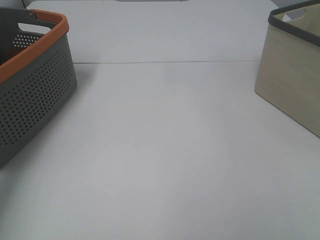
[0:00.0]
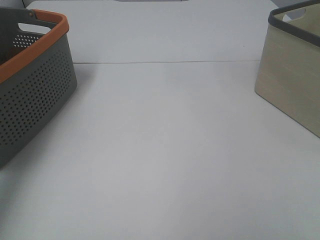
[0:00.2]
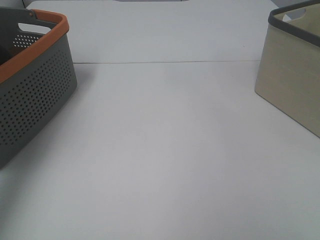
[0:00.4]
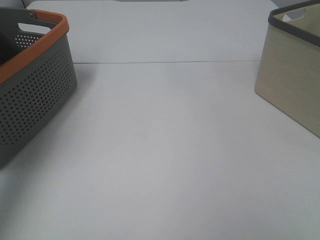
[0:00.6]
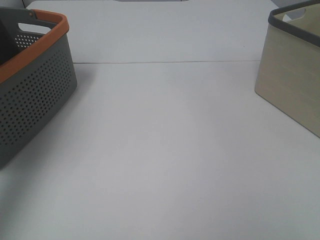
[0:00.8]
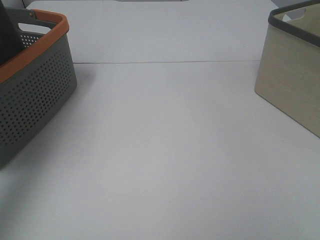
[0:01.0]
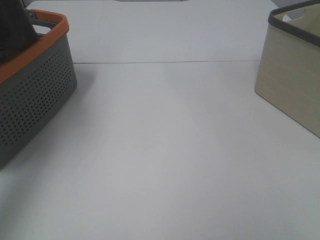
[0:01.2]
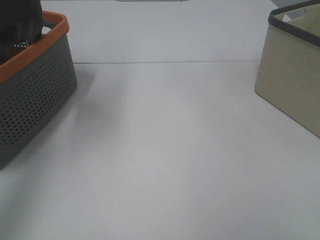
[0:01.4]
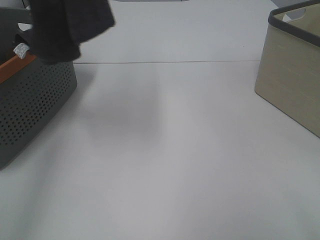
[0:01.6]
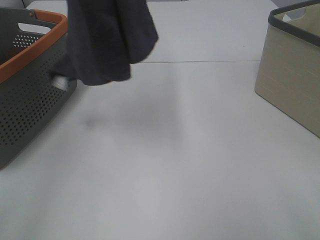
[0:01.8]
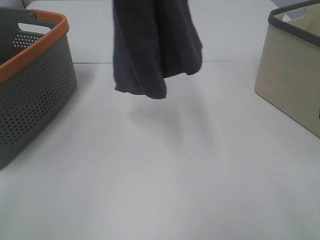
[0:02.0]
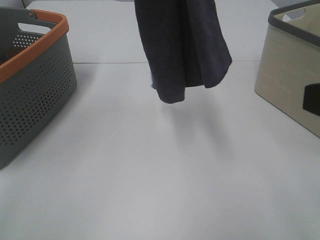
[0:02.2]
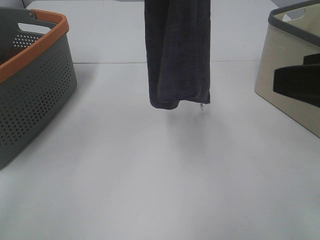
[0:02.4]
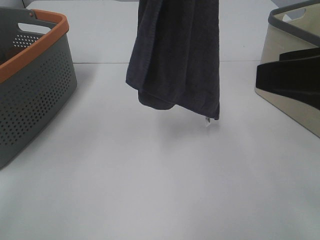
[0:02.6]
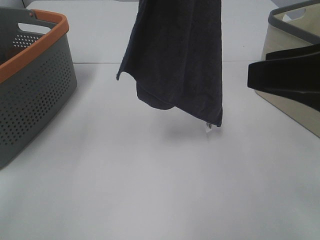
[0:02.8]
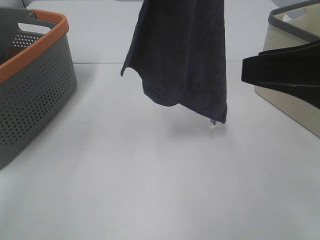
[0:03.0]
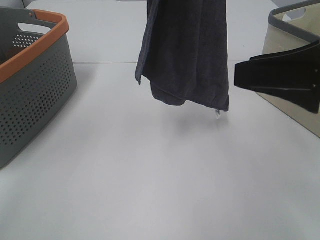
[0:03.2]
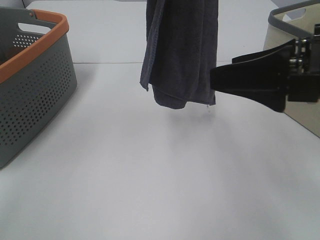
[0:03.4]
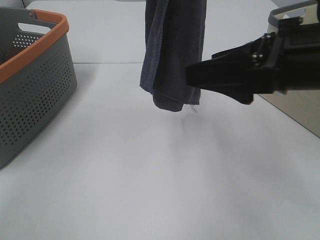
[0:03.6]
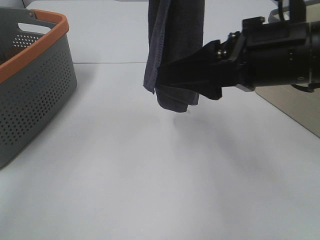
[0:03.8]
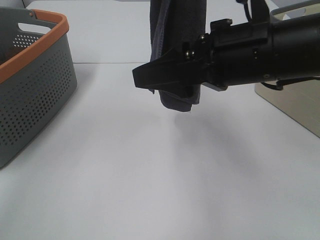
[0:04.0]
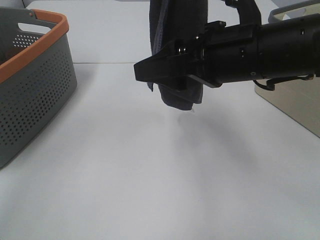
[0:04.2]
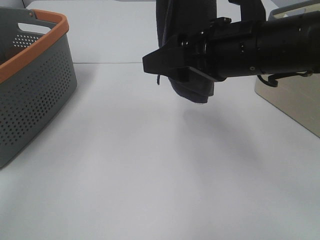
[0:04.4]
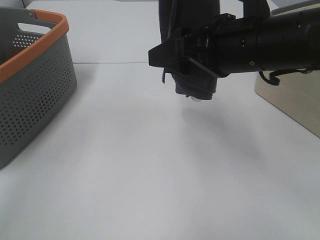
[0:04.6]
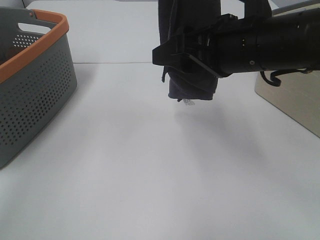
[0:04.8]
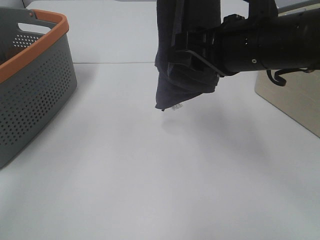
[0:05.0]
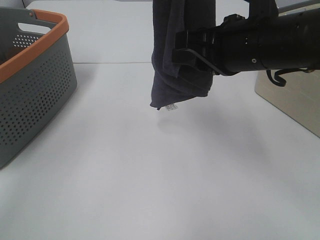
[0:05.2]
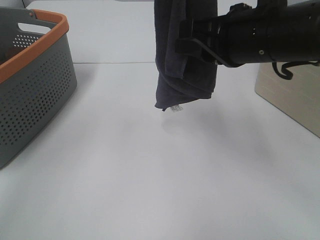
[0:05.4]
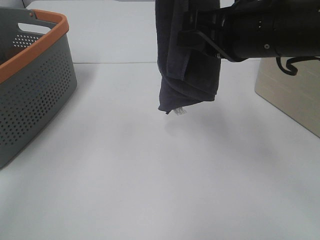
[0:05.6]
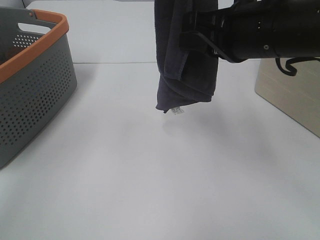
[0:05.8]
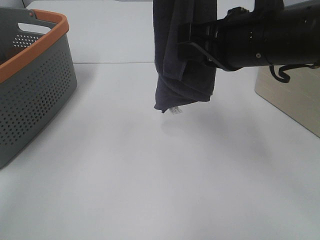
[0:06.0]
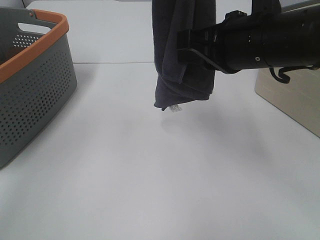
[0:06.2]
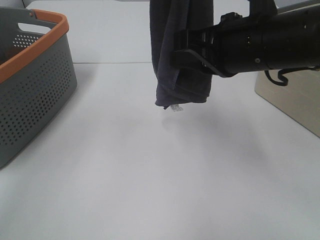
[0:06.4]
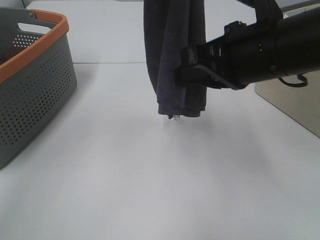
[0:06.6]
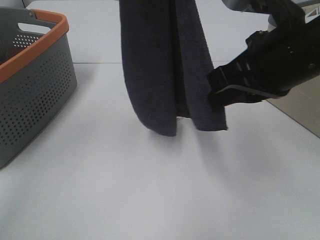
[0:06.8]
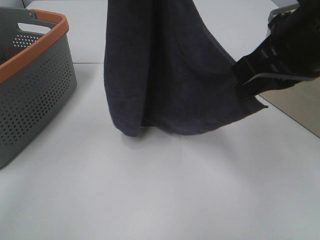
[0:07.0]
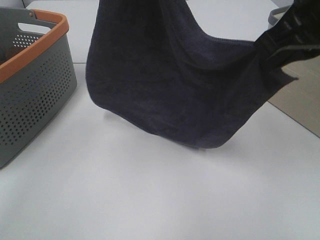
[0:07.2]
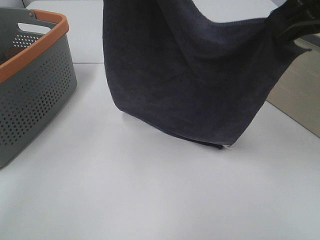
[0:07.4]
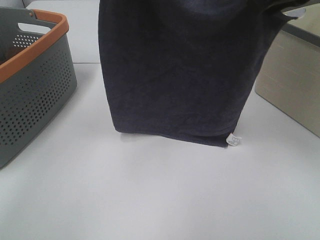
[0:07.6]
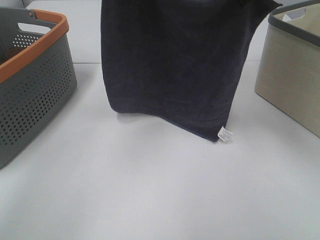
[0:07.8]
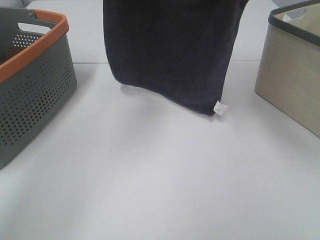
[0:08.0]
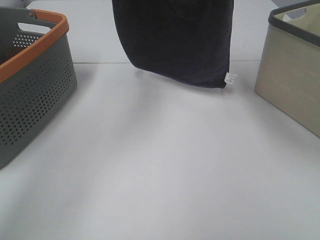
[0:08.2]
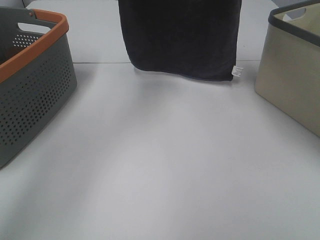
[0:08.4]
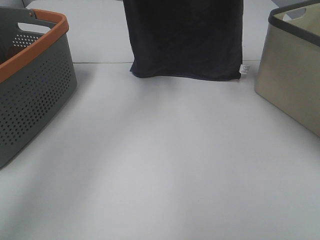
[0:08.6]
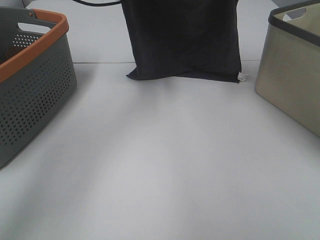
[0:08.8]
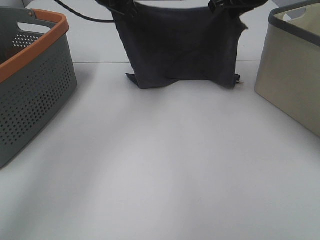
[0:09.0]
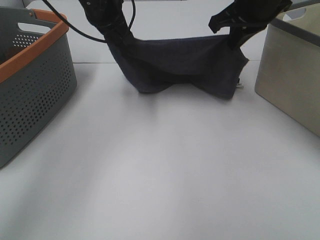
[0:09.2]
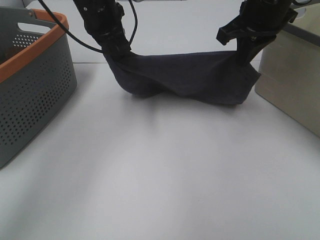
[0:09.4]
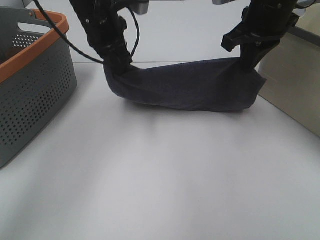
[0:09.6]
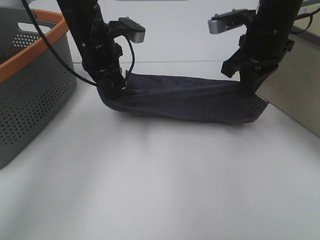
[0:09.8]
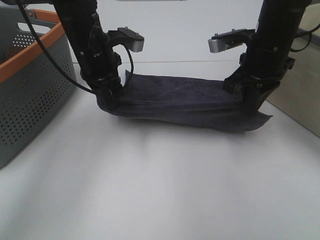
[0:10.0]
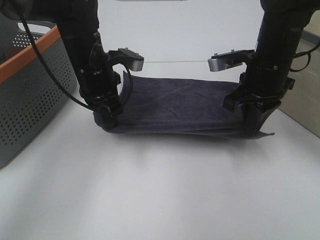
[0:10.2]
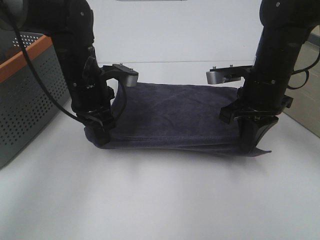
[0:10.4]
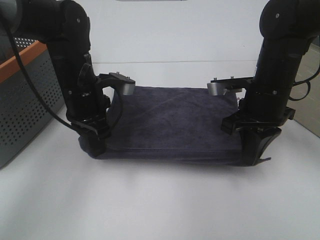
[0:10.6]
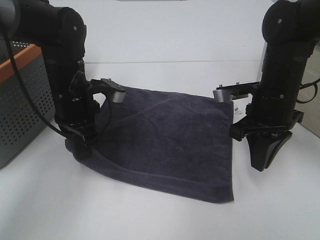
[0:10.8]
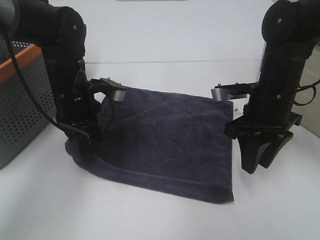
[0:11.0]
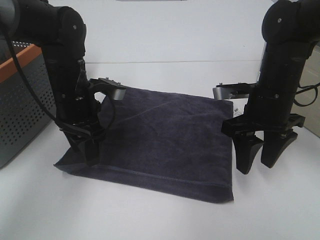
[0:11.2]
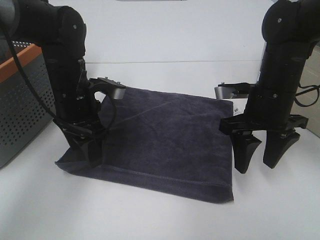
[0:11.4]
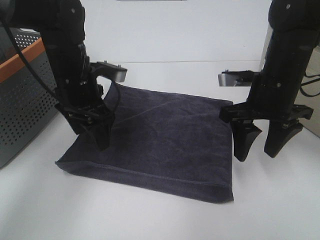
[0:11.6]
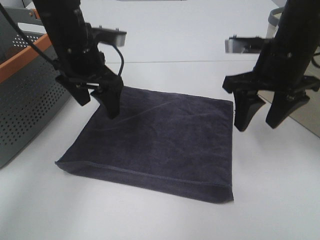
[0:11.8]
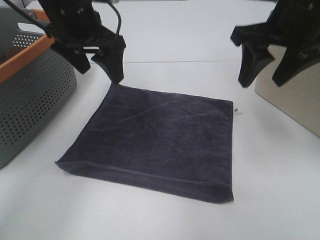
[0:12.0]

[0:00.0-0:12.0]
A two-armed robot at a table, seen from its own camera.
Task of the whole recording: Remove the towel and place it.
Step, 0.2 to 5.0 s: Right hand: grab a corner of the grey towel and straighten it.
Step, 5.2 to 7.0 s: Right hand: spread the grey towel flat on the table.
Step, 5.2 to 7.4 s: Left hand: spread the grey towel flat on the table.
0.0 to 1.6 s: The right gripper changes place by about 5 cm; the left gripper shifts roughly 25 cm upward, to the right and backward.
1.6 to 3.0 s: The left gripper goes some 15 cm to the right and downward, while the right gripper travels forward by approximately 15 cm.
3.0 to 4.4 s: The right gripper goes some 15 cm to the left and forward.
4.4 to 6.0 s: The right gripper closes its fingers.
6.0 to 7.6 s: The right gripper is displaced upward by about 10 cm. Meanwhile the left gripper travels downward and forward by some 10 cm.
7.6 to 9.0 s: The right gripper is displaced forward and downward by roughly 15 cm; the left gripper heads downward and forward, covering about 15 cm.
9.0 to 10.4 s: The two grippers go some 15 cm downward and backward.
10.4 to 12.0 s: Both grippers move upward, roughly 10 cm. The right gripper opens, while the left gripper opens its fingers.

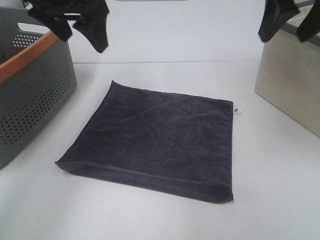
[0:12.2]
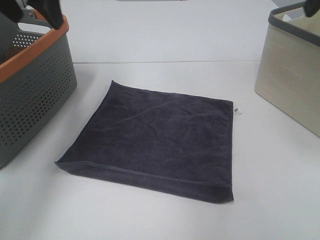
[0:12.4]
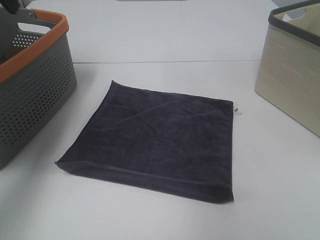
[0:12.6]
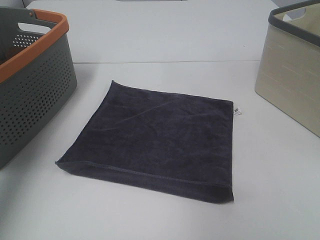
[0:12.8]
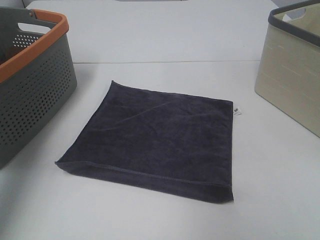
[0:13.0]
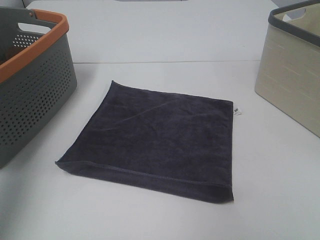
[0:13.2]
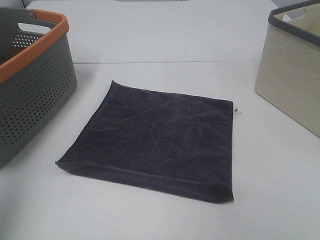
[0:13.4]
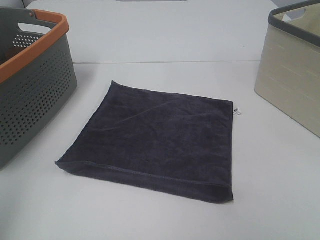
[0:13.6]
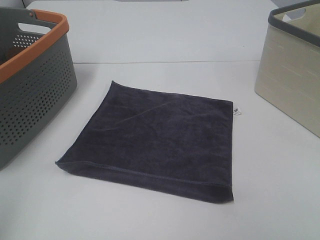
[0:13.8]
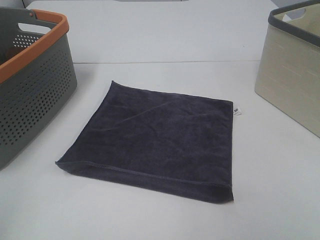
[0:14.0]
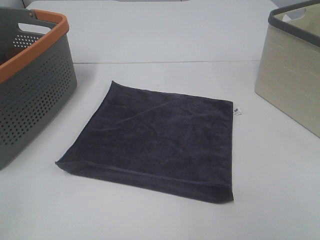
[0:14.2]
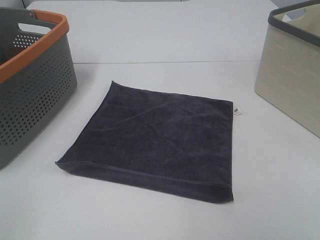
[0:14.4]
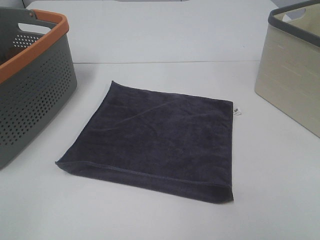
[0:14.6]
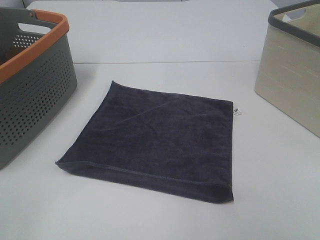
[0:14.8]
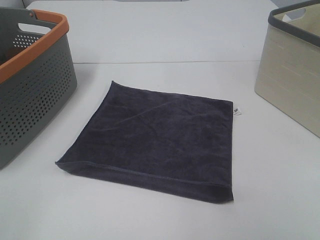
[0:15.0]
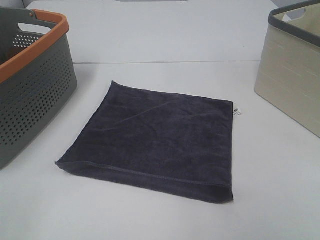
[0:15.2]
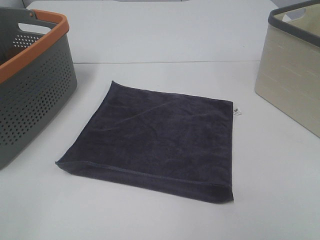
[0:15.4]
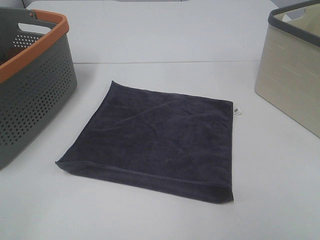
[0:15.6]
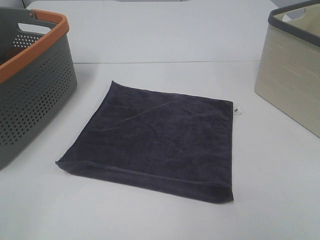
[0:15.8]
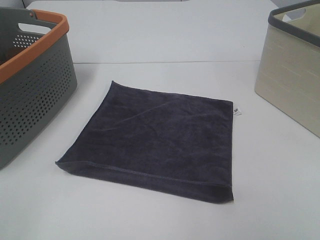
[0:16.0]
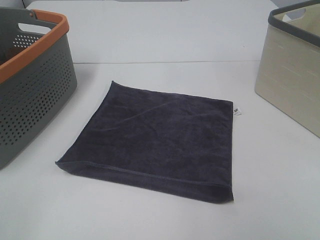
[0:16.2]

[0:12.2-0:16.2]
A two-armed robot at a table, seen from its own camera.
Task of the whole recording: Remove the towel and place it.
12.2 to 13.6 s: The left gripper shifts approximately 35 cm backward and to the left. Meanwhile the right gripper is displaced backward by roughly 25 cm.
13.6 to 14.8 s: The left gripper travels backward and downward by some 10 cm.
14.8 to 16.2 s: The two grippers keep their place.

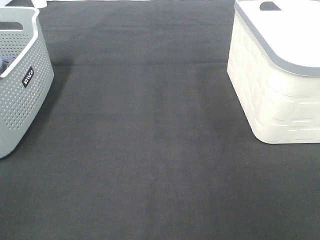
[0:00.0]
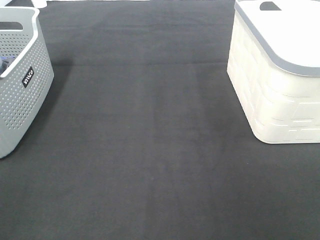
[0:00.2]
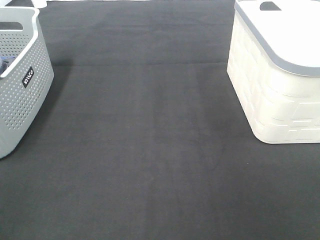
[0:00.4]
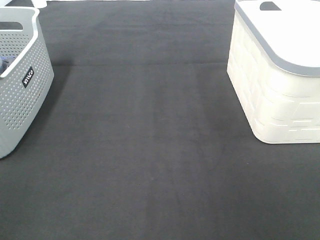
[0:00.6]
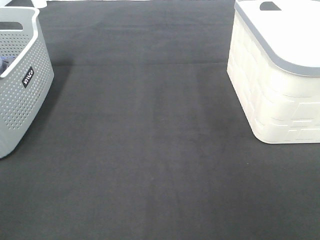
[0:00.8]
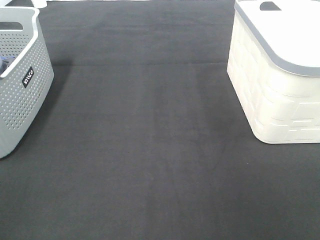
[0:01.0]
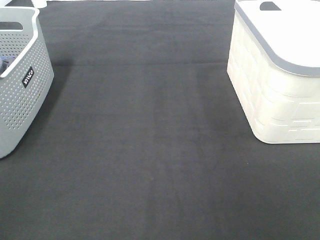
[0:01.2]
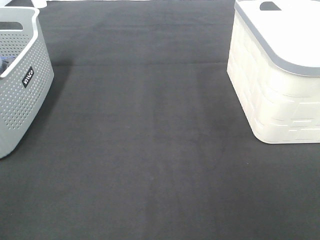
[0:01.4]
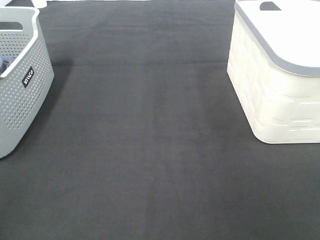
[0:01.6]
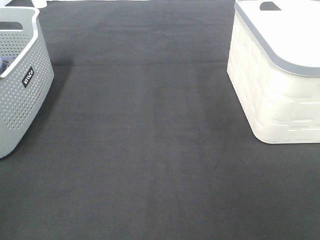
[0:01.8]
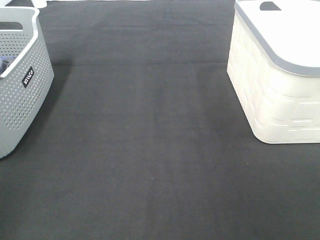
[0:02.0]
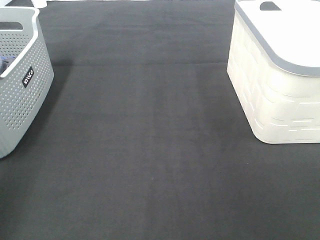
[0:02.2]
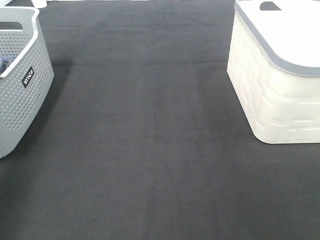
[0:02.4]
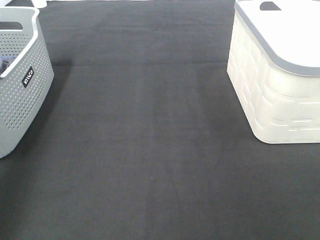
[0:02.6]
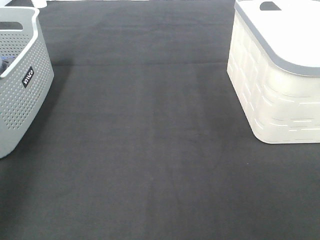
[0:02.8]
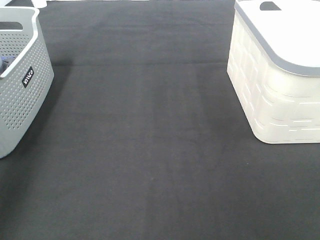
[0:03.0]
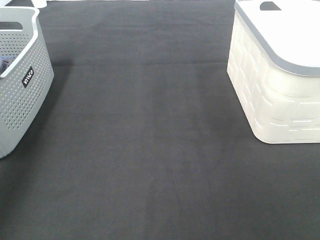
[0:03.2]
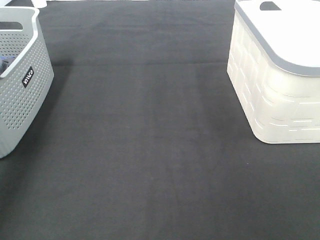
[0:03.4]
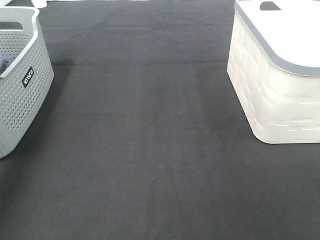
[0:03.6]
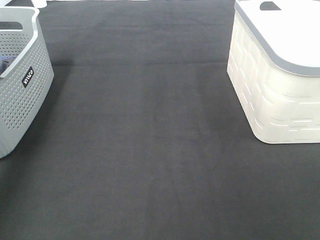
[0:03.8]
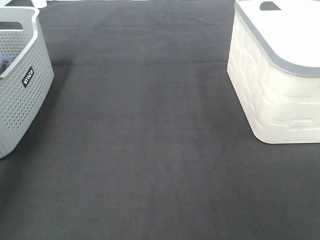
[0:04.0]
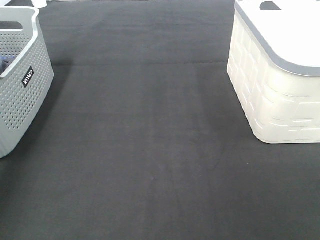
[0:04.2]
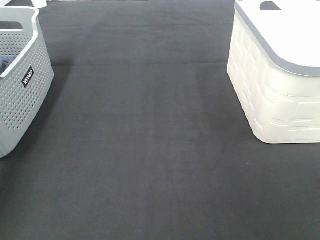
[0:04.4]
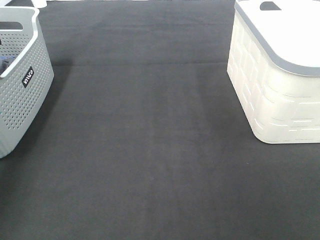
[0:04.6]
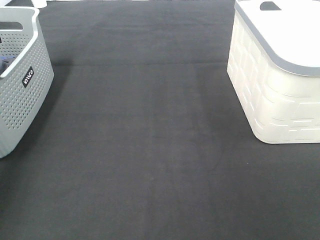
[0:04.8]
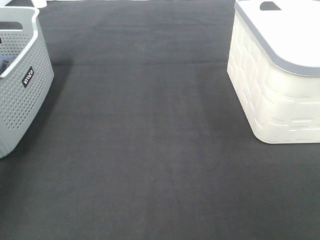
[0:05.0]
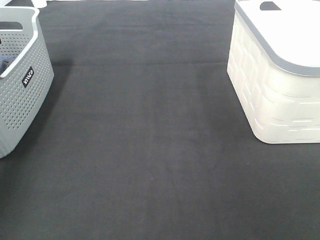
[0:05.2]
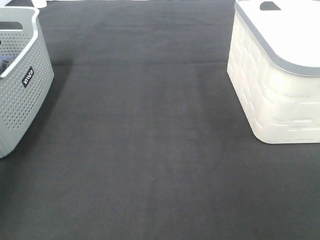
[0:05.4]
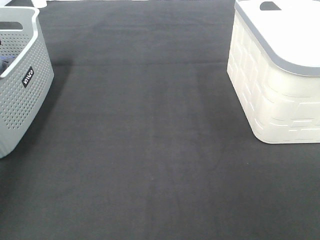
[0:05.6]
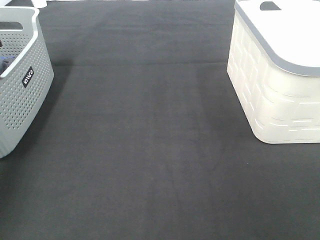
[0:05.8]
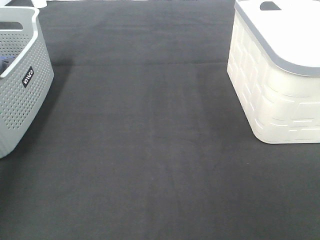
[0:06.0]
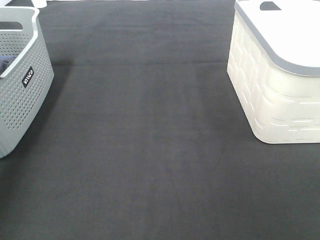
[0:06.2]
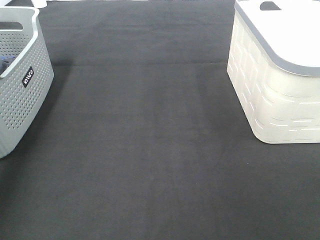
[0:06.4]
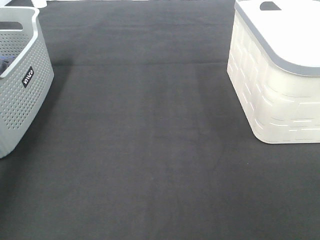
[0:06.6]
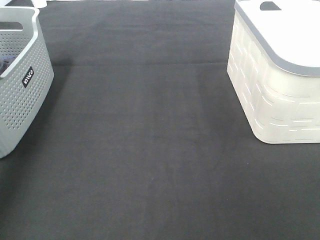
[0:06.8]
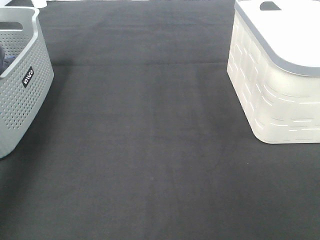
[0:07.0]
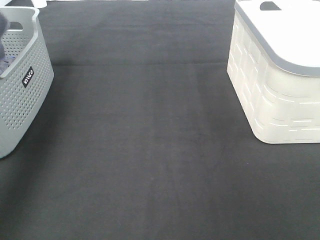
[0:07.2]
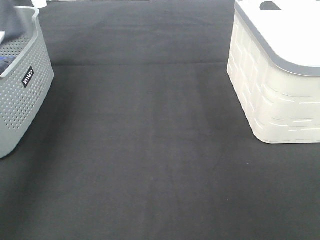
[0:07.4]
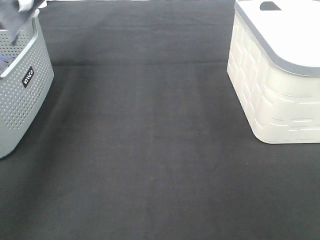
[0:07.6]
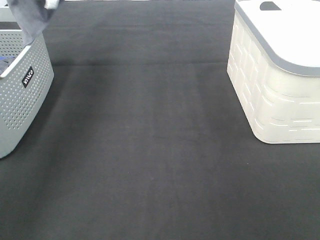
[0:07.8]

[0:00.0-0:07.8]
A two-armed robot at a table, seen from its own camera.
Task of the whole recording: Remove the towel and place it.
1.6 to 3.2 s: The left gripper moves forward, approximately 35 cm.
6.2 to 7.8 s: The left gripper heads upward and to the right, covering some 30 cm.
